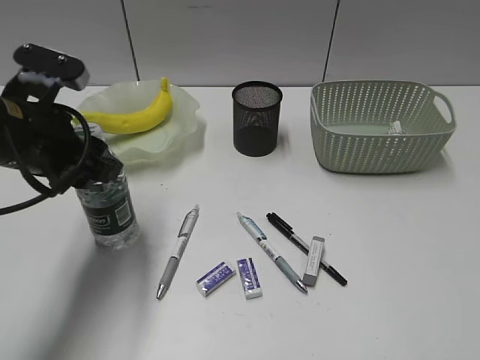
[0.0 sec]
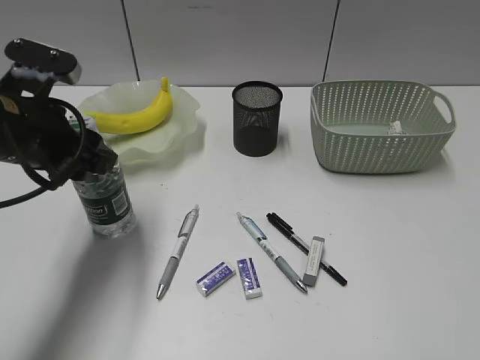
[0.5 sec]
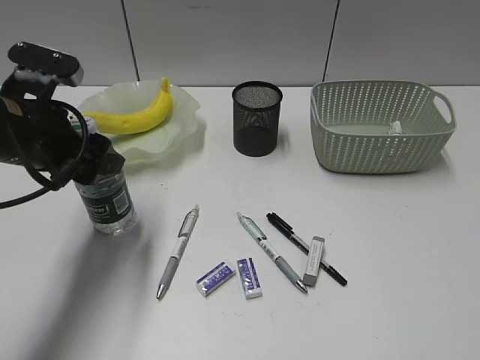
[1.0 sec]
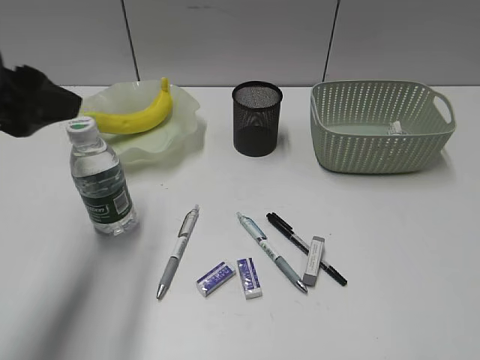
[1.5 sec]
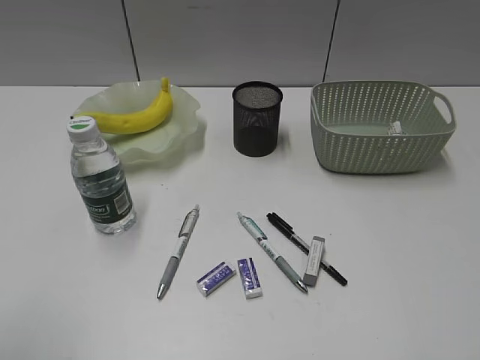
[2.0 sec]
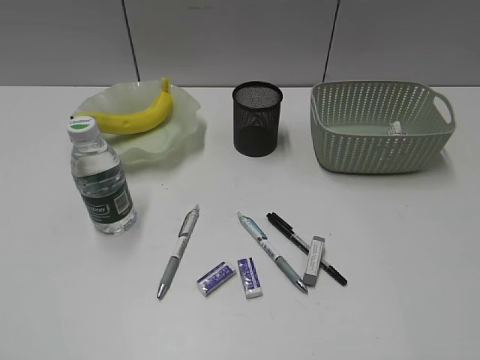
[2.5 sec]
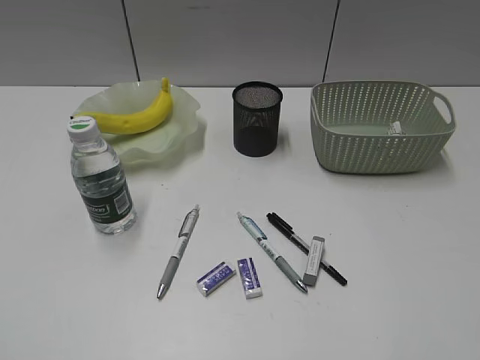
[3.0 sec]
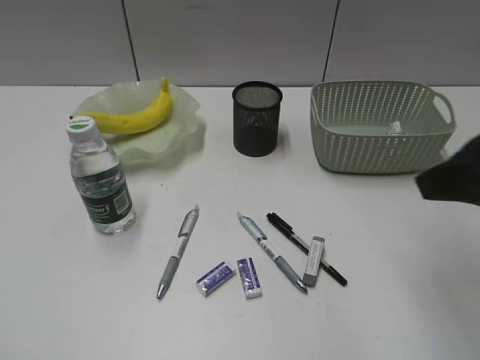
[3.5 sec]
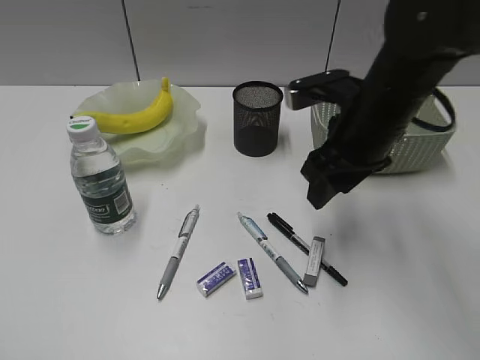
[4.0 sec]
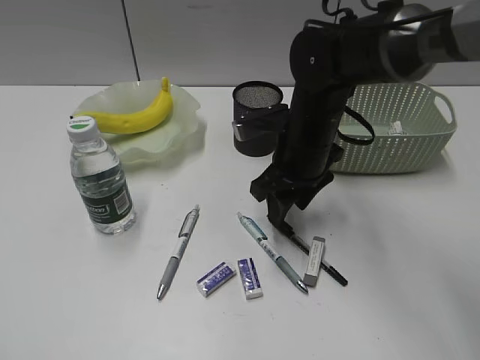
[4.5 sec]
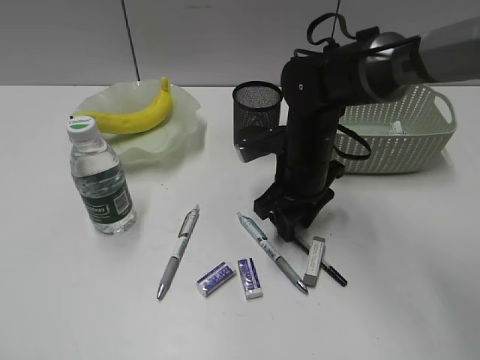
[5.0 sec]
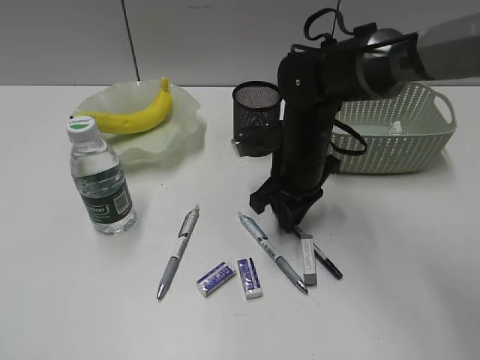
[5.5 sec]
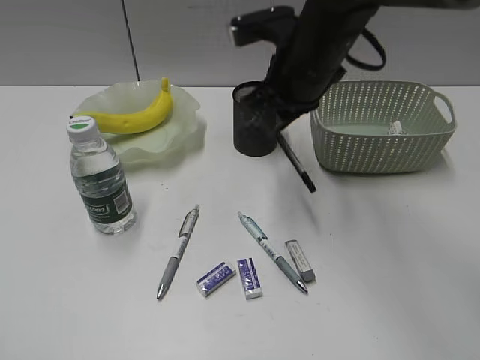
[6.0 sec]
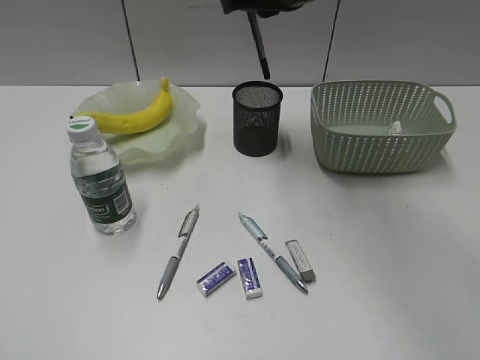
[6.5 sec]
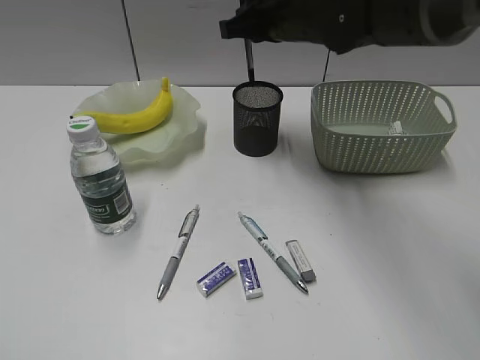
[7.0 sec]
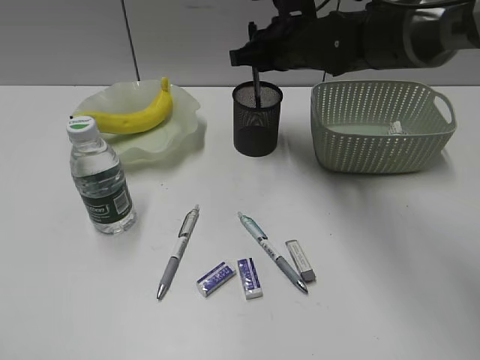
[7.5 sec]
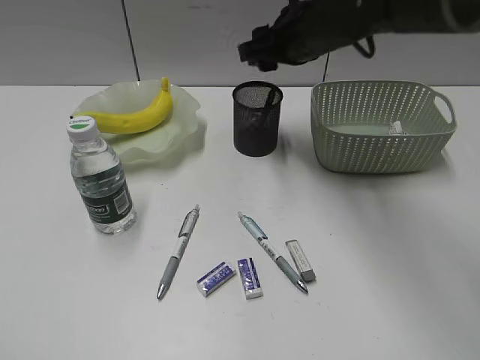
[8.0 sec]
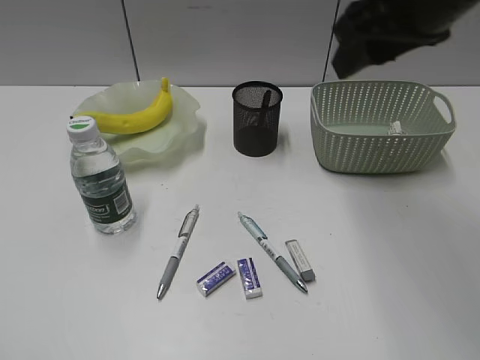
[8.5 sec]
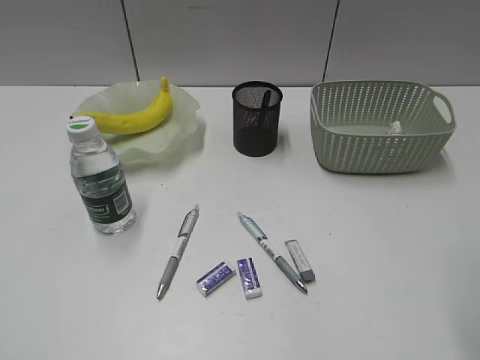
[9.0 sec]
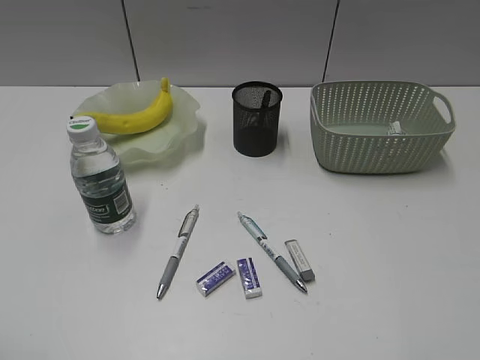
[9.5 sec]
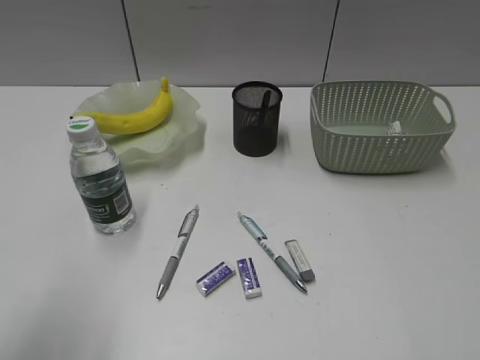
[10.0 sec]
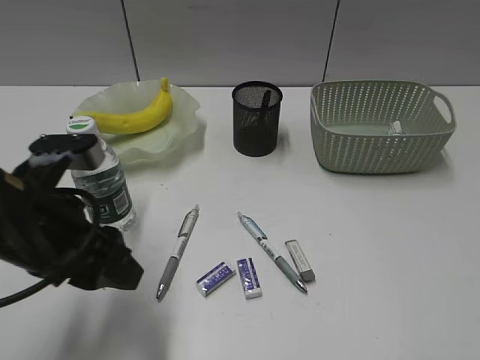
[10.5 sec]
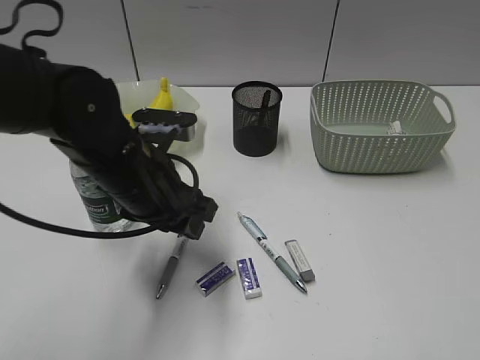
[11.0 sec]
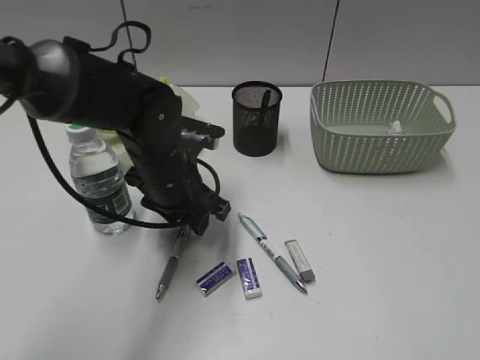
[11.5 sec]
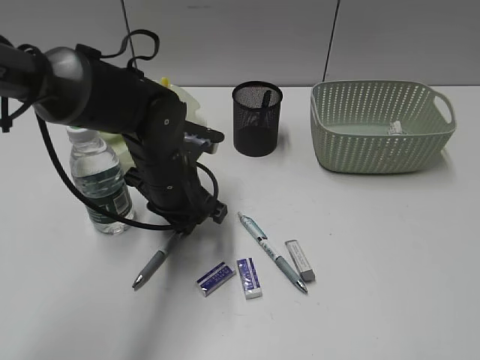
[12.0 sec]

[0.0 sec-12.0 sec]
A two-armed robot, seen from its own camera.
Step, 1.5 sec to 5.0 sec: Grasp the black pen with right gripper.
Step, 5.5 sec to 7.5 sec: Place the black pen in pen holder with right gripper.
0.0 sec to 2.0 sec: The left gripper travels backward, upward and to the left by roughly 25 cm.
2.0 sec to 4.0 sec: The right gripper shifts about 35 cm forward and to the left. Meanwhile the left gripper travels backward and downward by about 10 cm.
4.0 sec to 6.0 sec: The right gripper goes about 5 cm to the left, travels downward and back again, about 10 cm each way, and closes its fingers.
6.0 sec to 8.0 sec: The right gripper moves forward, roughly 5 cm, reaches roughly 10 cm upward, then returns, and opens up.
8.0 sec to 10.0 sec: The left gripper moves forward and to the right, approximately 10 cm. Meanwhile the right gripper is displaced backward and to the right by about 50 cm.
10.0 sec to 12.0 sec: The left gripper travels forward, to the right and downward by roughly 35 cm, and closes its fingers.

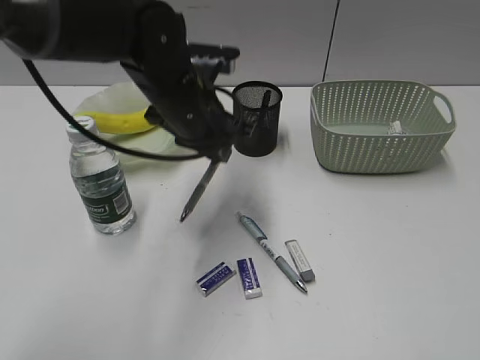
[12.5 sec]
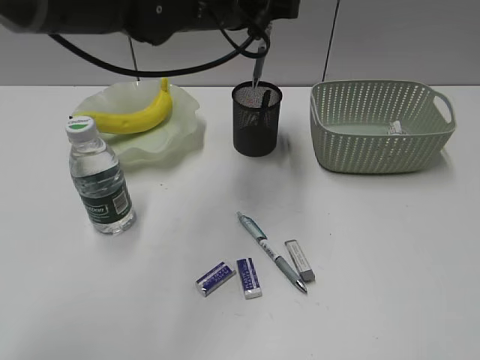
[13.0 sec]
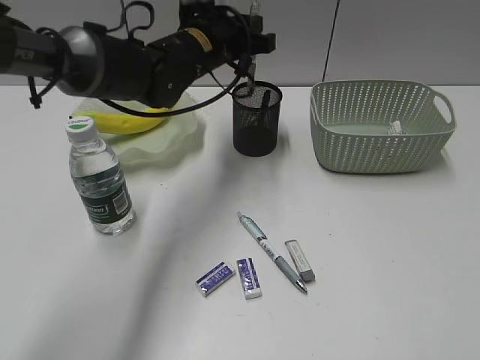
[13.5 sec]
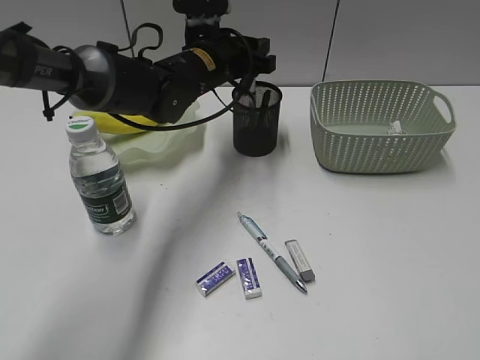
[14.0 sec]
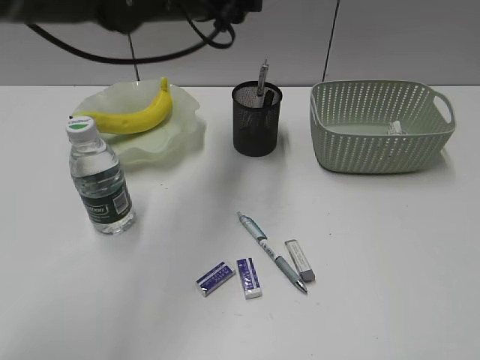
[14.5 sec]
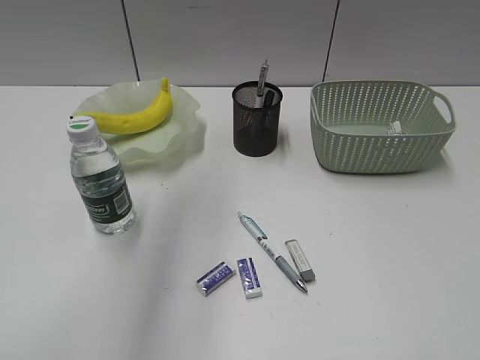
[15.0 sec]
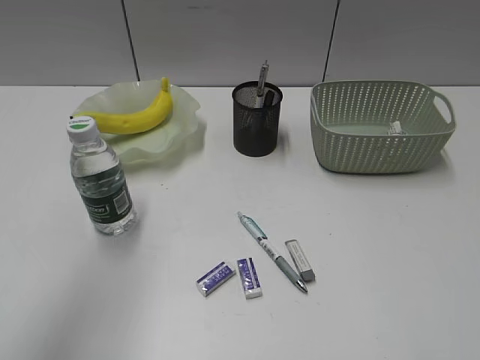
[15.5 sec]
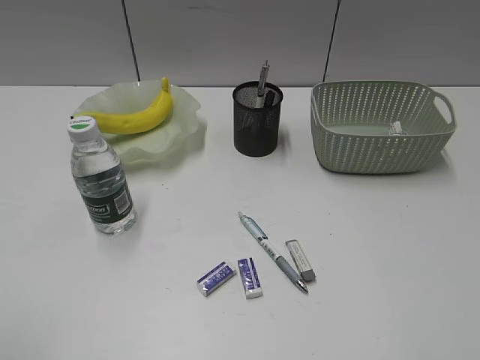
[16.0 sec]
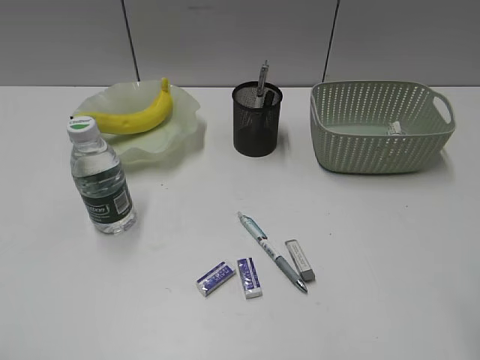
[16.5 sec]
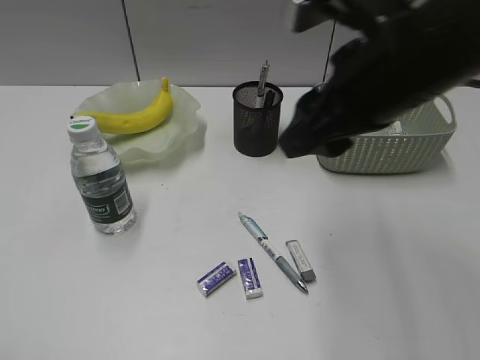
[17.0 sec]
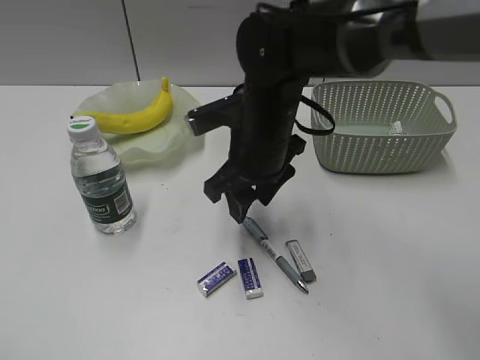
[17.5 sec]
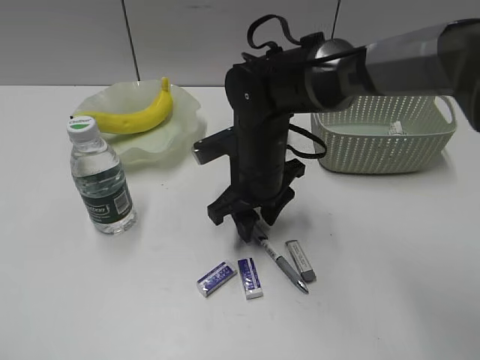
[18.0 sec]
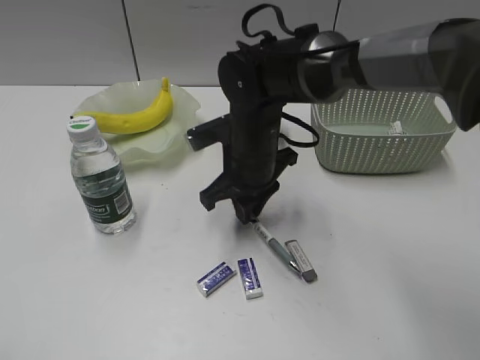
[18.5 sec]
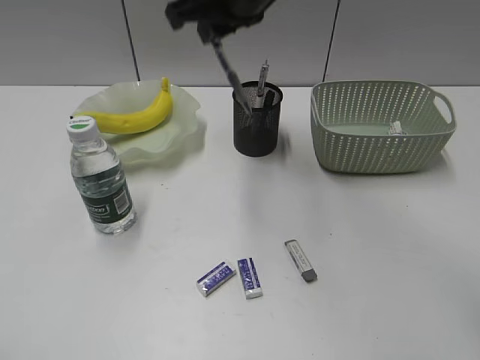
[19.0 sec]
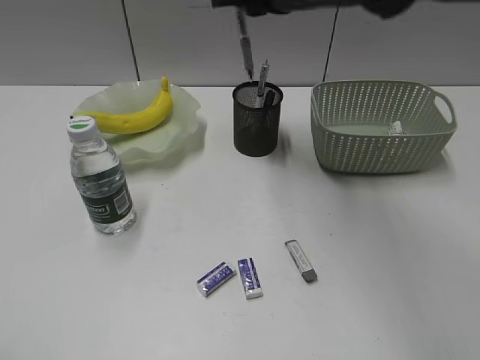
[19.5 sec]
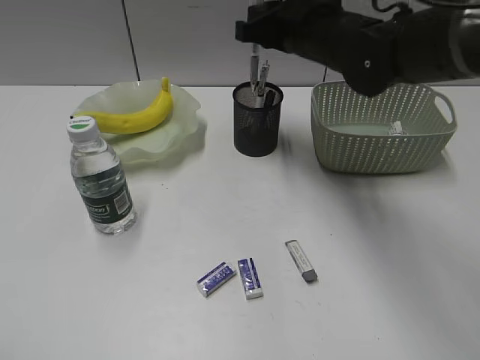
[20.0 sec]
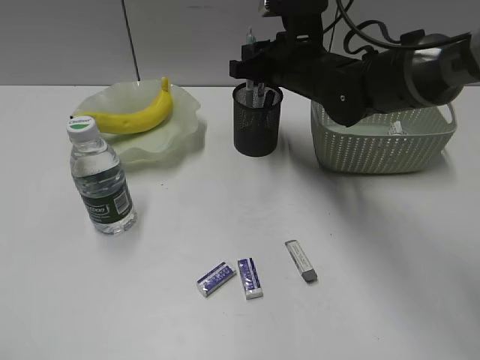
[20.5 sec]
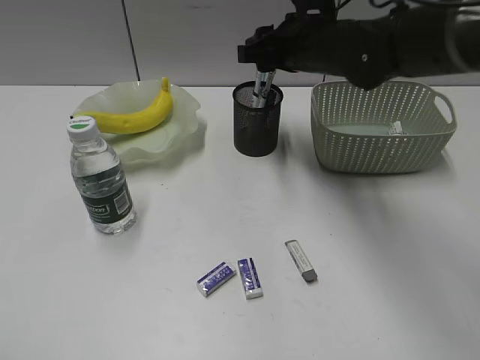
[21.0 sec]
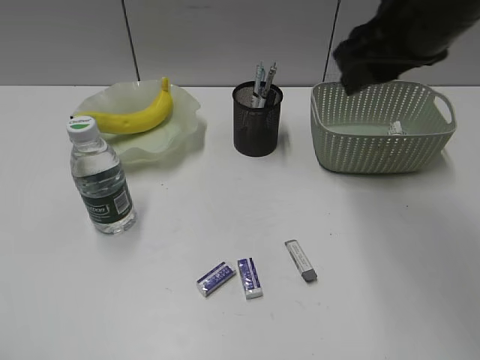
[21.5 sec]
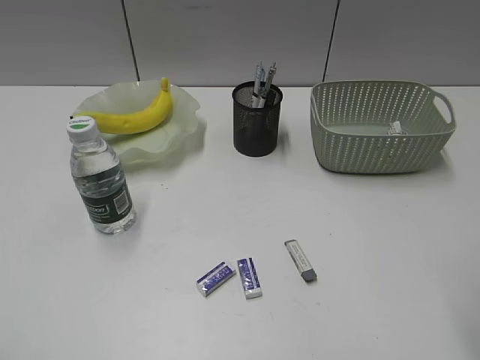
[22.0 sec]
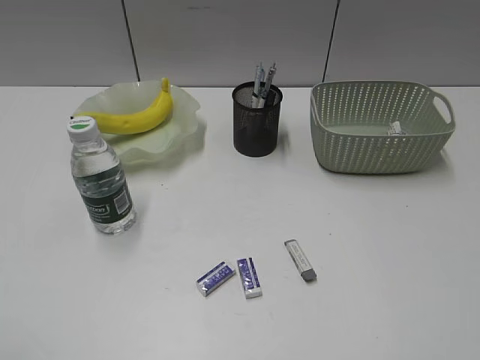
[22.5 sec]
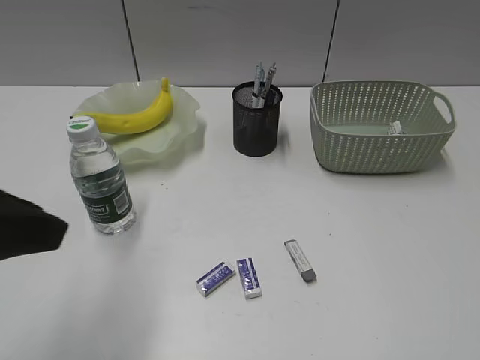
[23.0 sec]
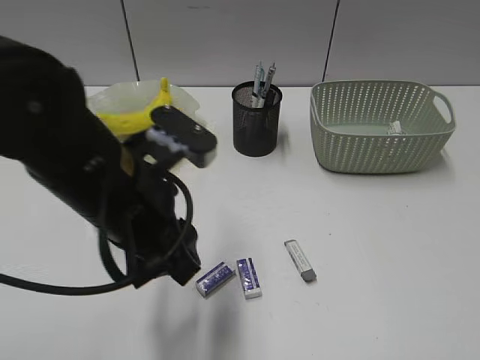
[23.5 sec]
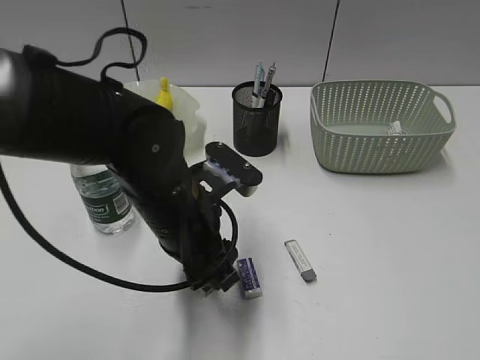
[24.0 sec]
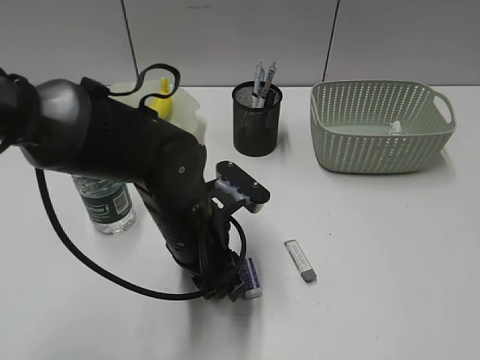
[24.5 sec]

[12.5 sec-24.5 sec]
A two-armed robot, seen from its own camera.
Step, 12.5 sec to 14.0 sec: Place the gray pen in pen holder with left gripper.
Step, 14.5 sec to 18.0 sec: Grasp the blue pen with left gripper.
12.5 sec to 14.5 sec: The left gripper moves up and down over about 10 cm, changing direction 2 times, and opens.
14.5 sec to 16.5 sec: The left gripper goes about 50 cm backward and to the left. The right gripper travels forward by some 5 cm.
16.5 sec to 18.5 sec: The right gripper travels forward, to the left and downward by about 40 cm, and closes.
18.5 sec to 20.5 sec: The right gripper goes roughly 10 cm forward and to the right, and moves roughly 20 cm upward and comes back.
20.5 sec to 22.5 sec: The right gripper shifts roughly 50 cm backward and to the right, and opens up.
22.5 sec to 24.5 sec: The left gripper is displaced to the right, forward and downward by about 40 cm.

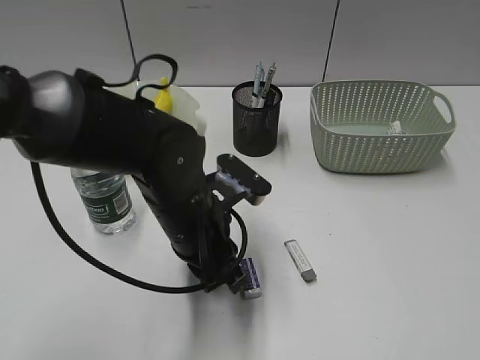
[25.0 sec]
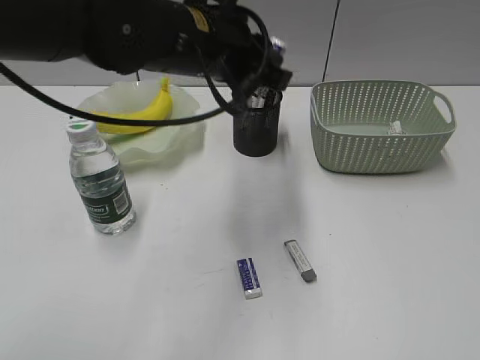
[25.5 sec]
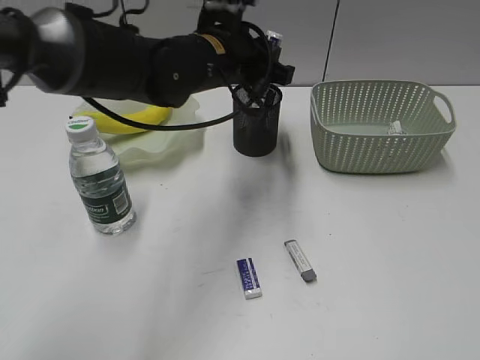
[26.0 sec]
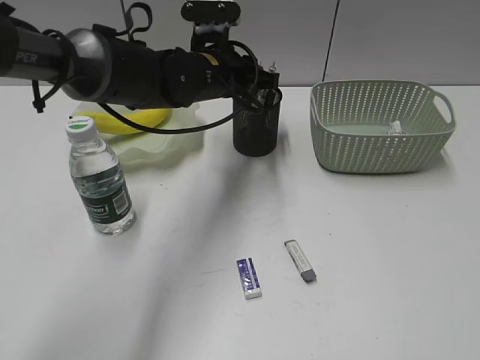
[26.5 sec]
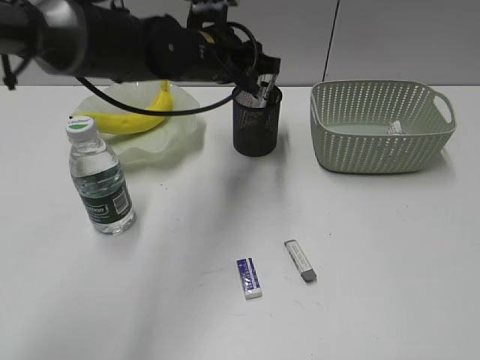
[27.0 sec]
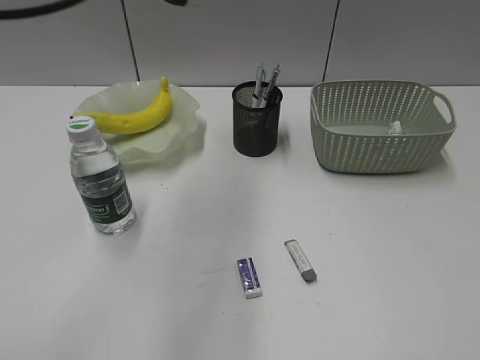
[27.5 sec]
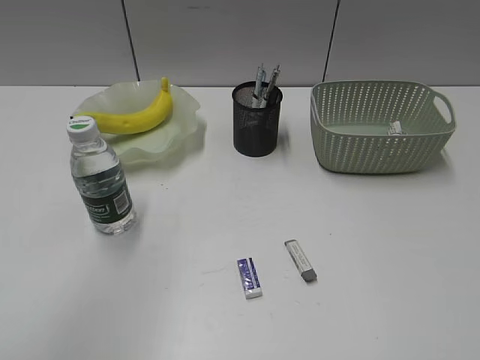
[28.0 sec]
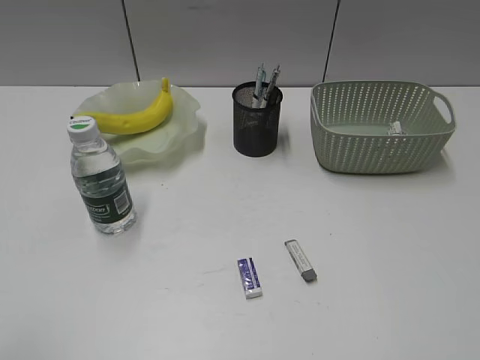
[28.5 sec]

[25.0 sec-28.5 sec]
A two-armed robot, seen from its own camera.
Step, 25.0 sec to 26.5 sec: Place the eraser in pen holder with left gripper.
25.0 sec to 27.0 sec: The left gripper moves forward and upward, some 20 cm.
27.0 sec to 28.5 sec: The left gripper moves backward and to the left, about 50 cm.
